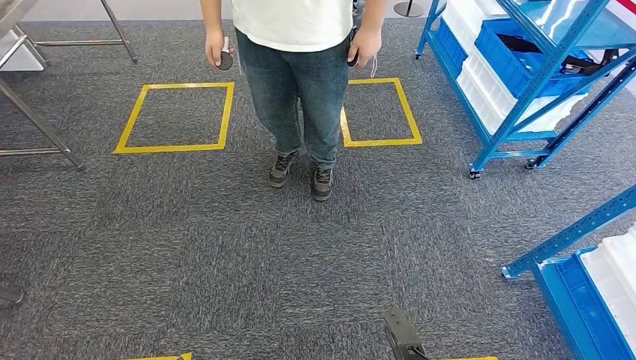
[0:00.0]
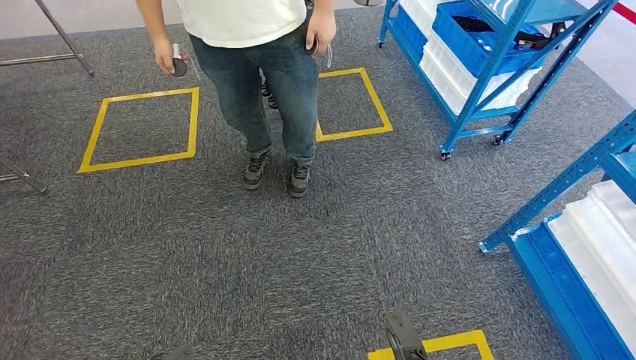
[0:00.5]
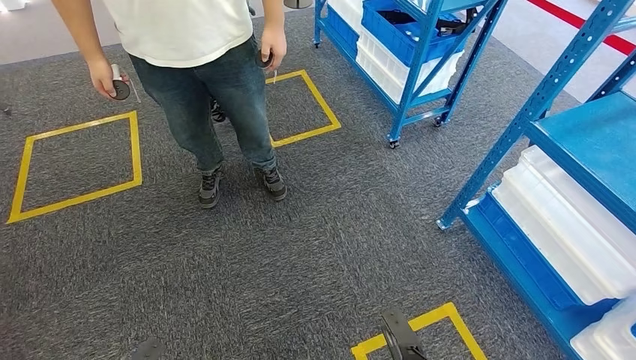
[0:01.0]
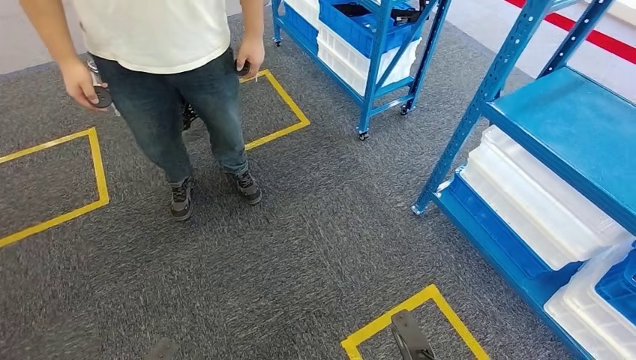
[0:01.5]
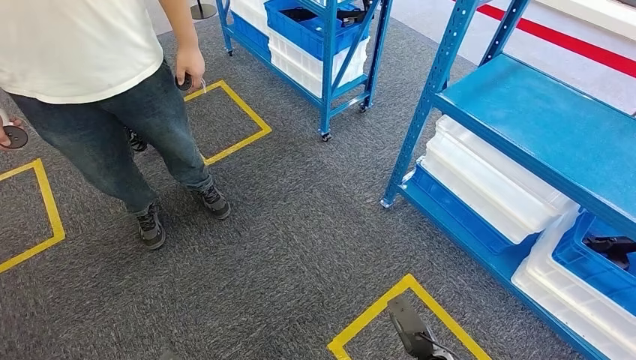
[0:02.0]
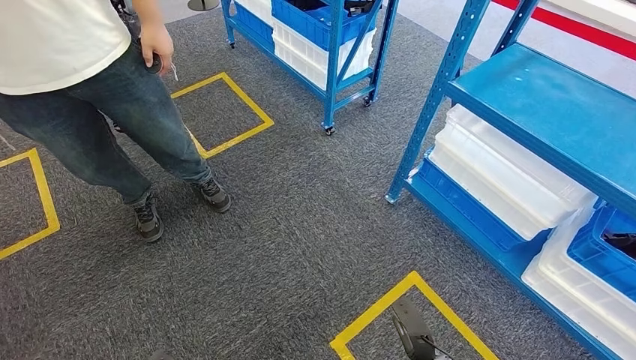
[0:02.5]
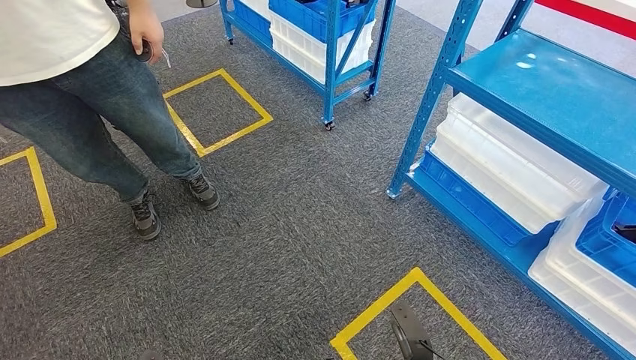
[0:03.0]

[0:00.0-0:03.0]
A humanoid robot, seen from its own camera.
Step, 0:00.0 to 0:03.0: Move to the initial position of the shelf.
